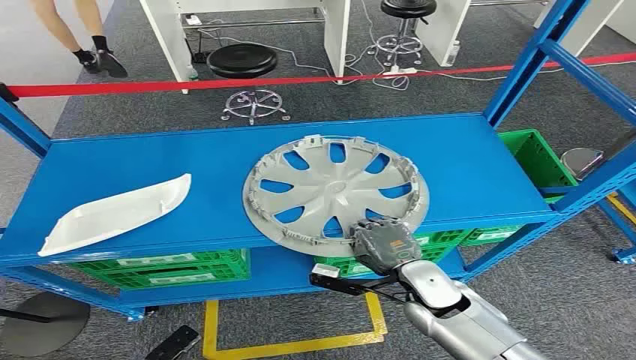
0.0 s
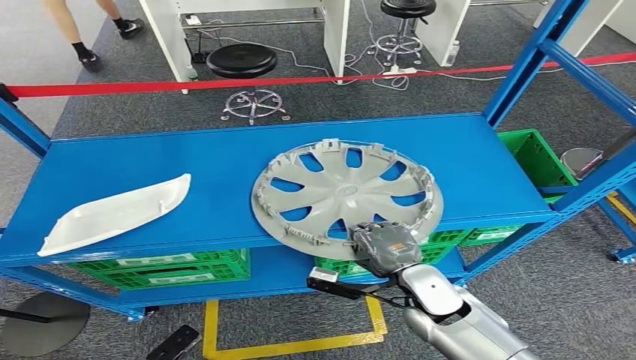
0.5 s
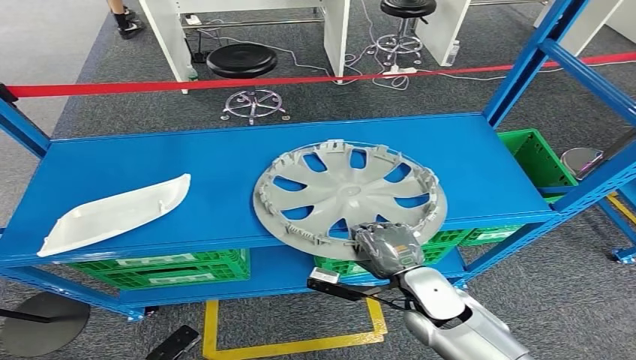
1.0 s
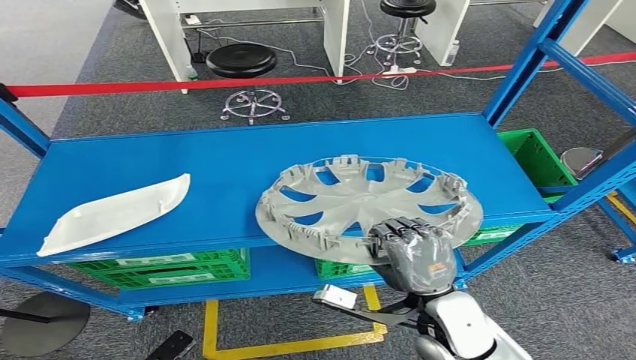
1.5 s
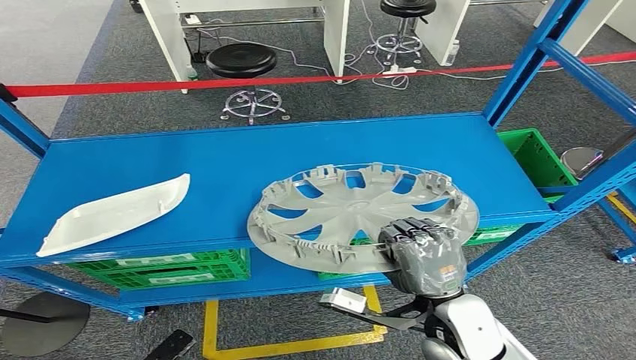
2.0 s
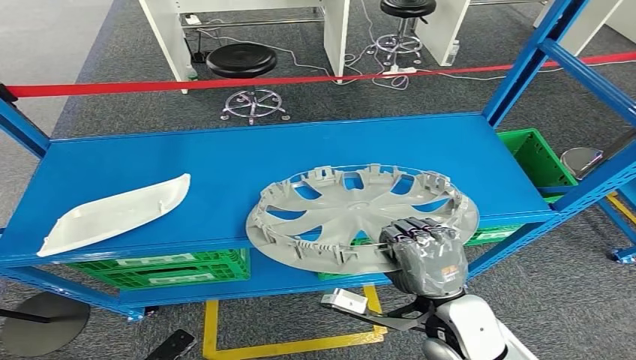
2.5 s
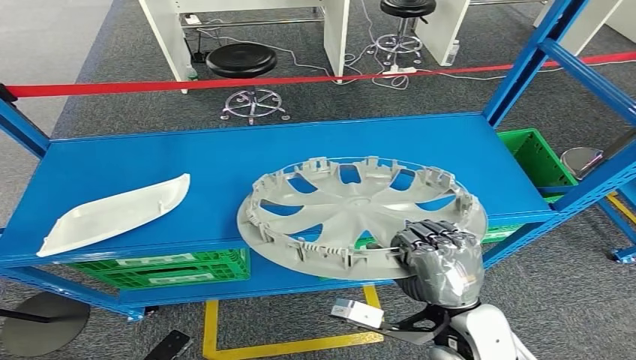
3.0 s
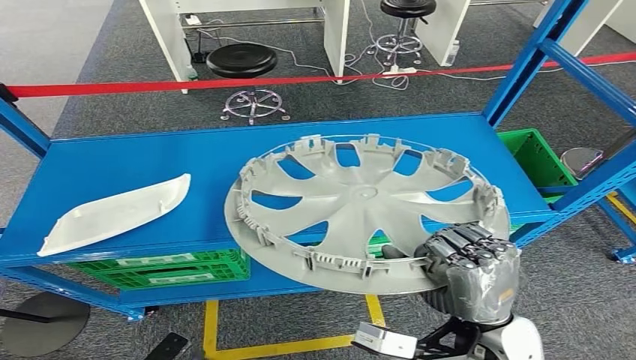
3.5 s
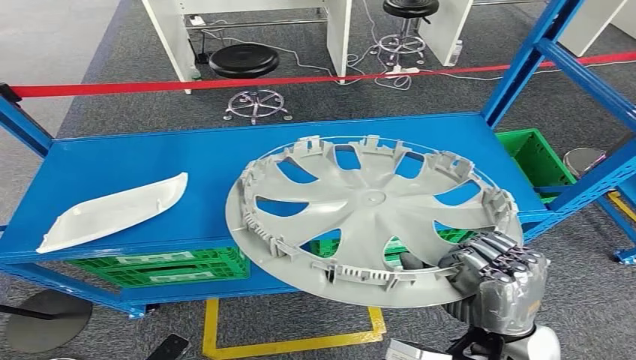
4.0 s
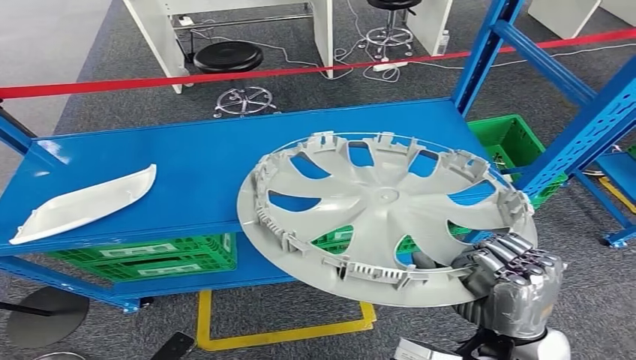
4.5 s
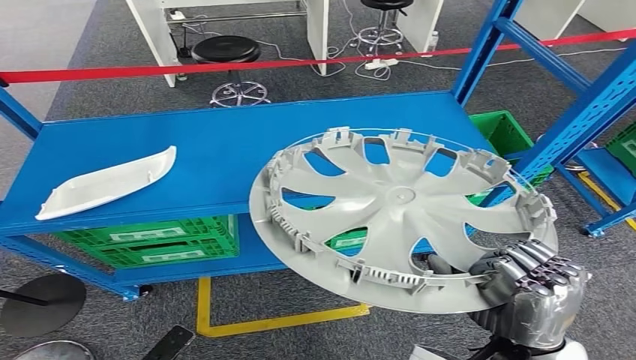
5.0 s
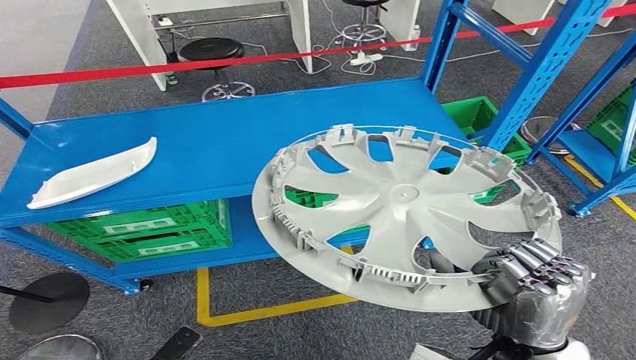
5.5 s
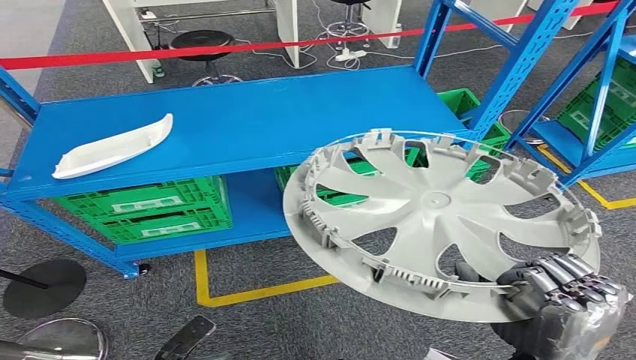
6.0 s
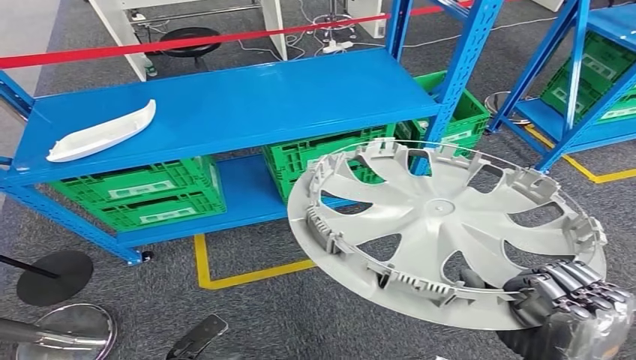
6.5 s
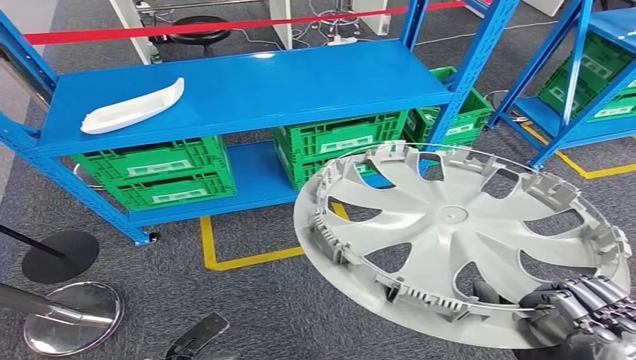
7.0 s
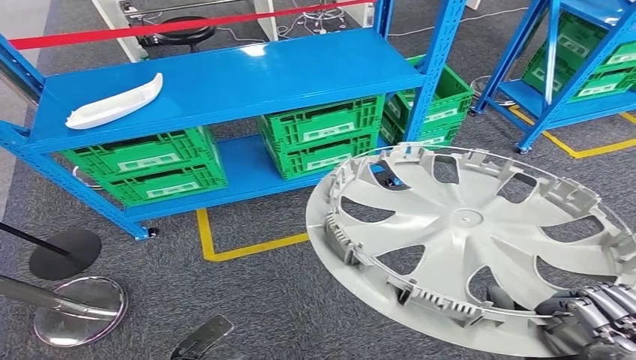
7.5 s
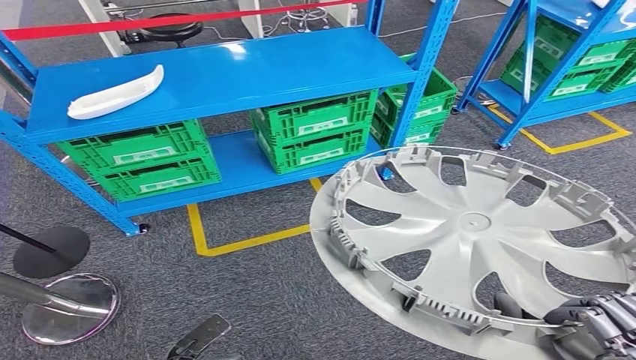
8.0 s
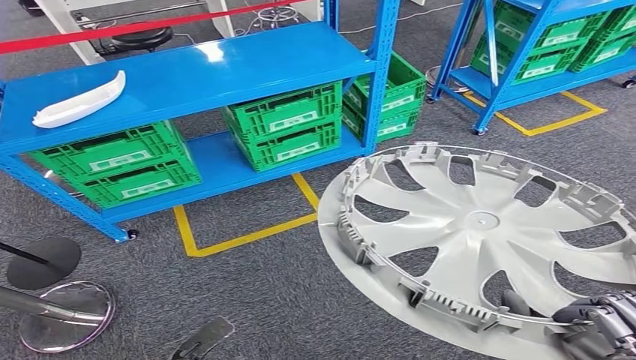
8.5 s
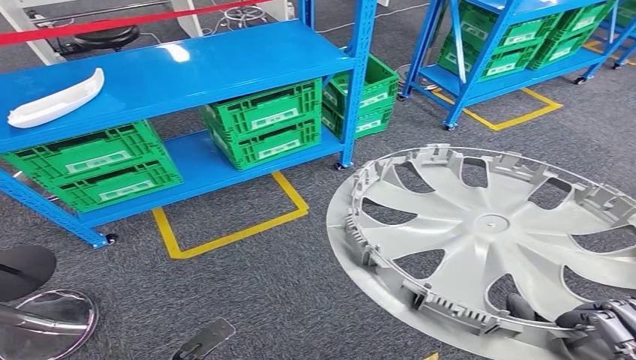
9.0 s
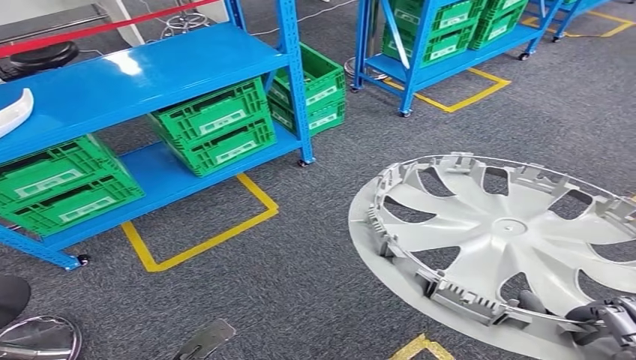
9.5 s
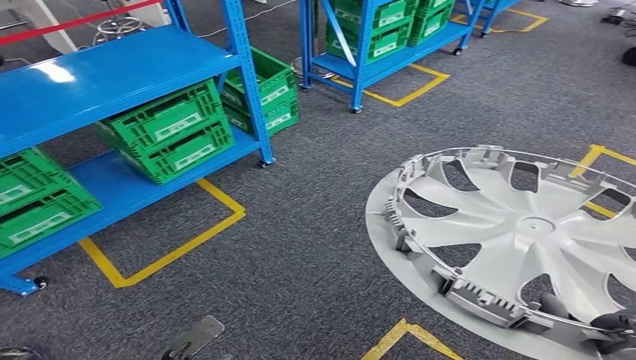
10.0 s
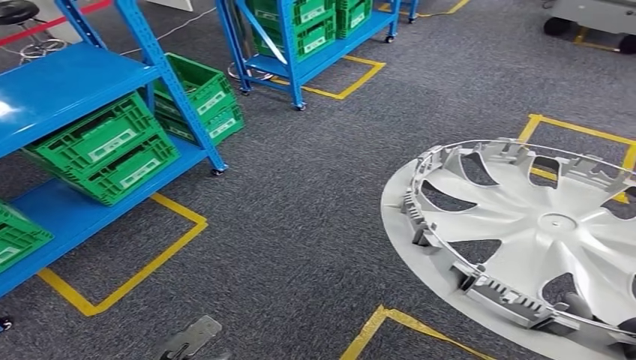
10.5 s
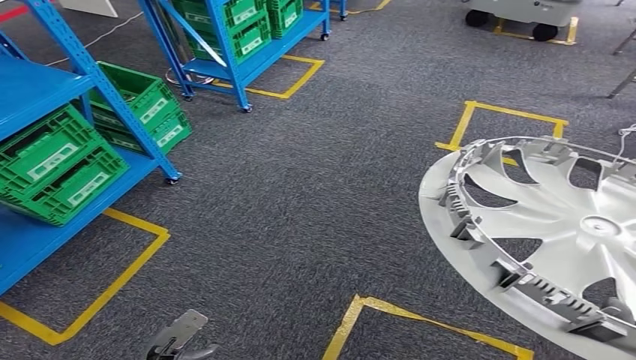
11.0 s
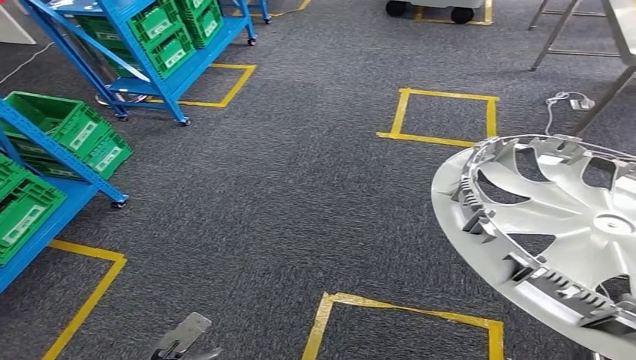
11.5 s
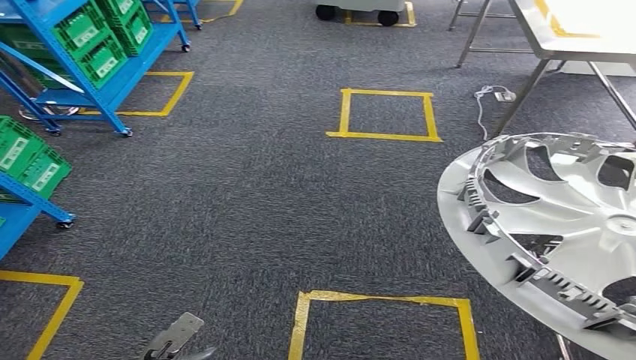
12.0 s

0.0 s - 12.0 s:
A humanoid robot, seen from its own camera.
Step, 0.0 s - 4.0 s: Pick up the small component from the shelf.

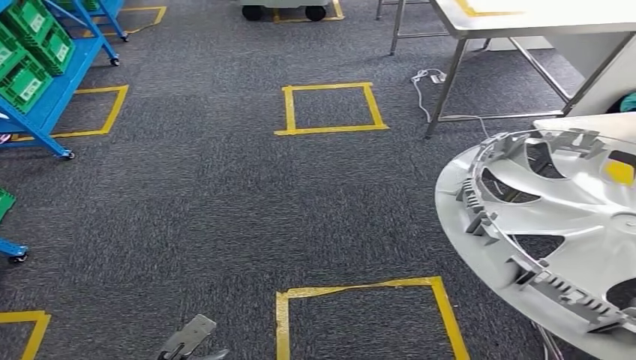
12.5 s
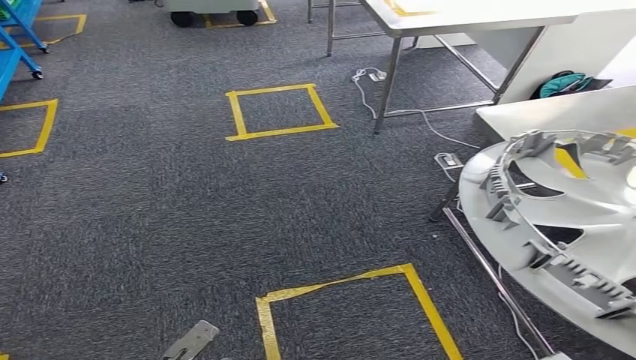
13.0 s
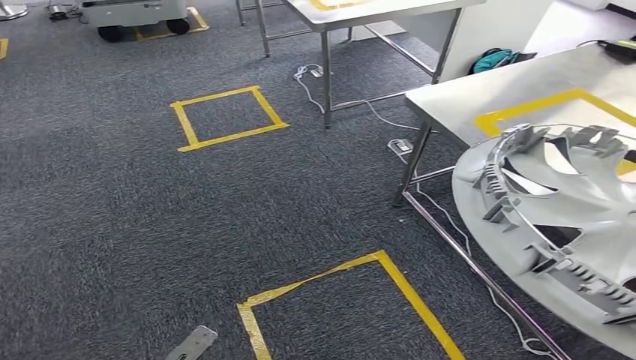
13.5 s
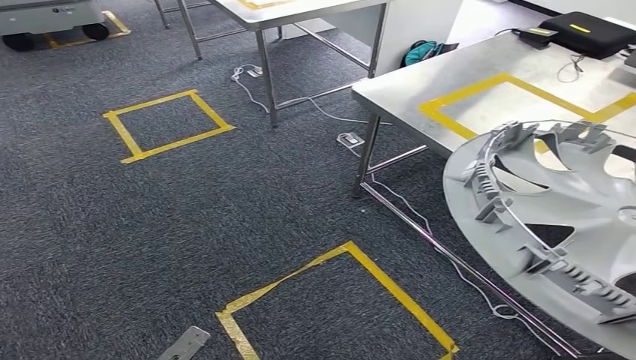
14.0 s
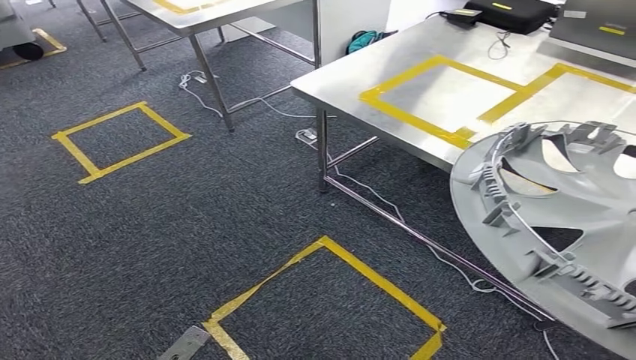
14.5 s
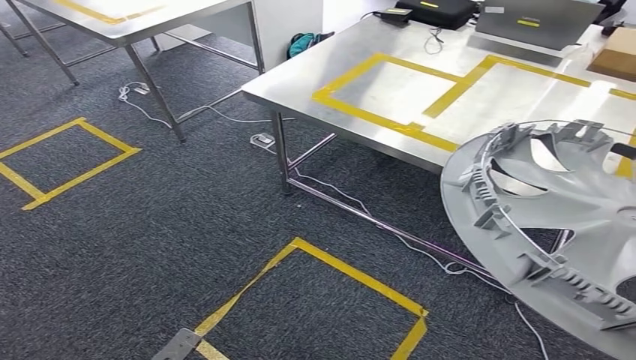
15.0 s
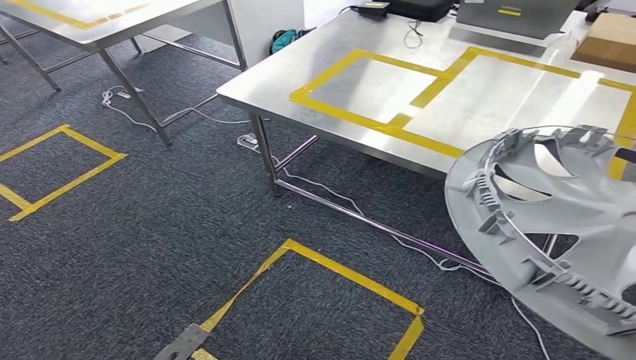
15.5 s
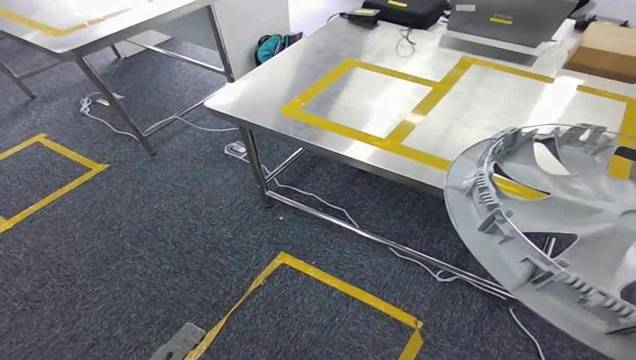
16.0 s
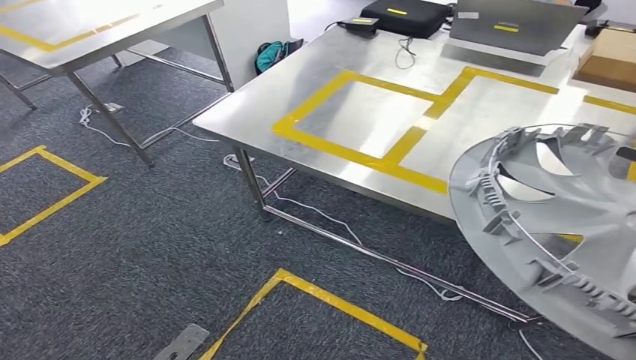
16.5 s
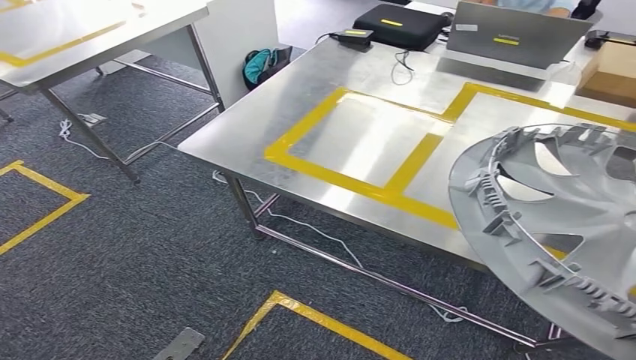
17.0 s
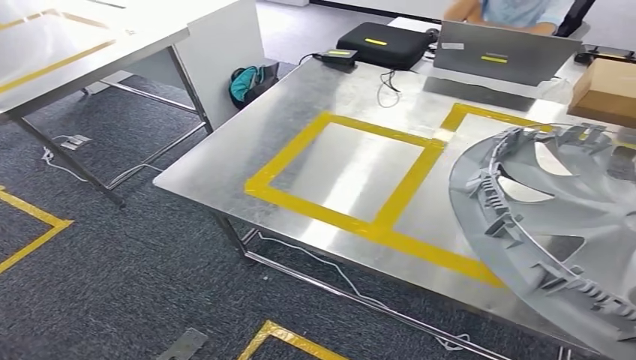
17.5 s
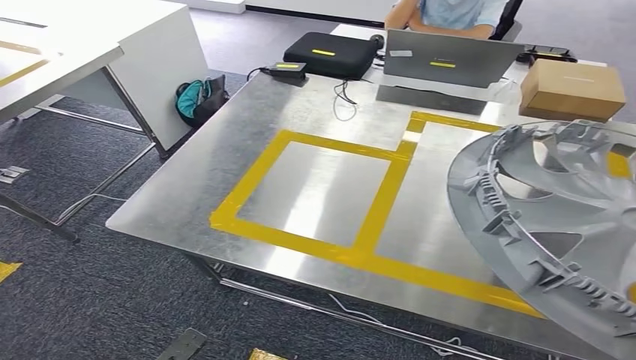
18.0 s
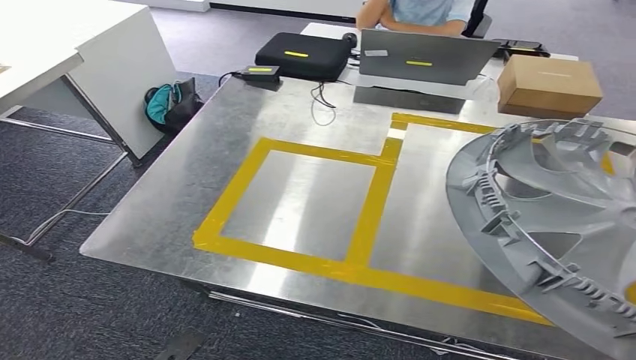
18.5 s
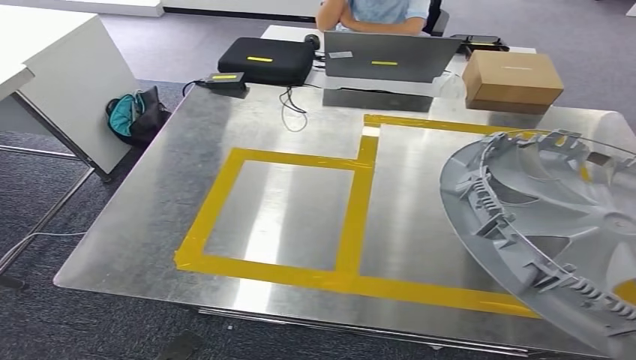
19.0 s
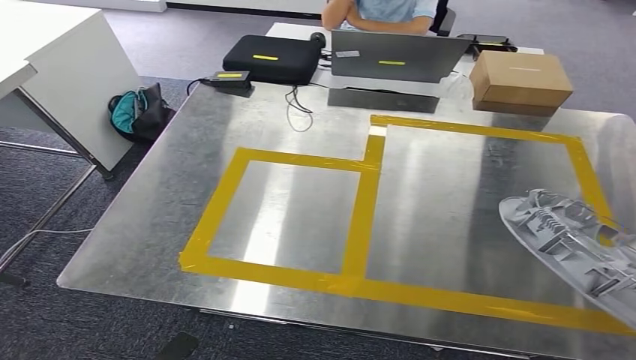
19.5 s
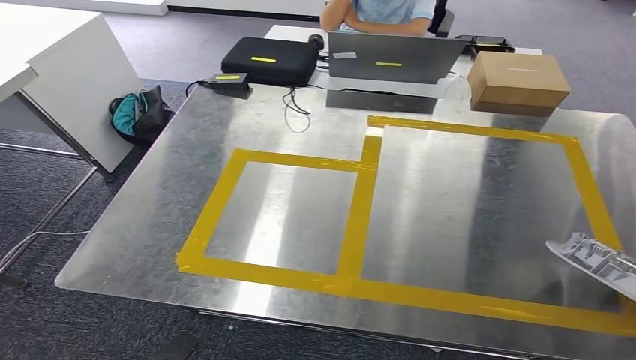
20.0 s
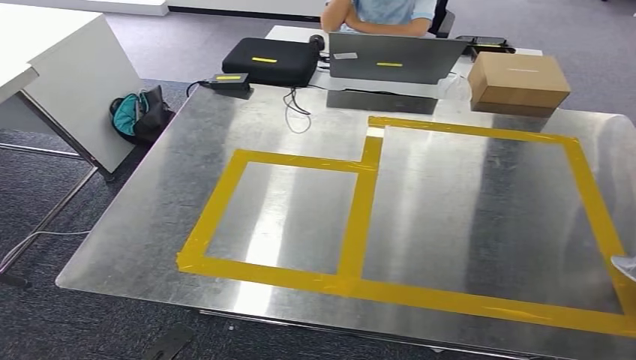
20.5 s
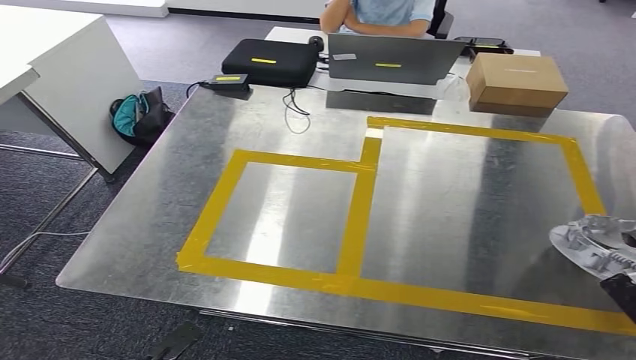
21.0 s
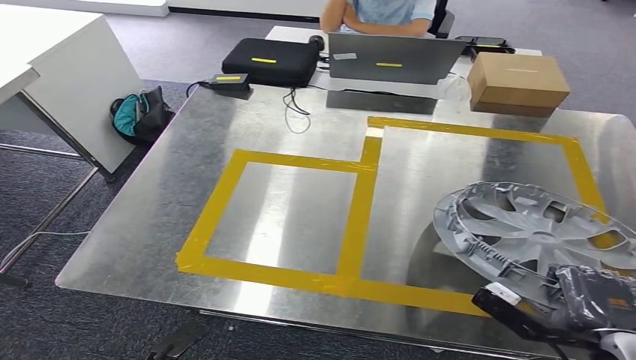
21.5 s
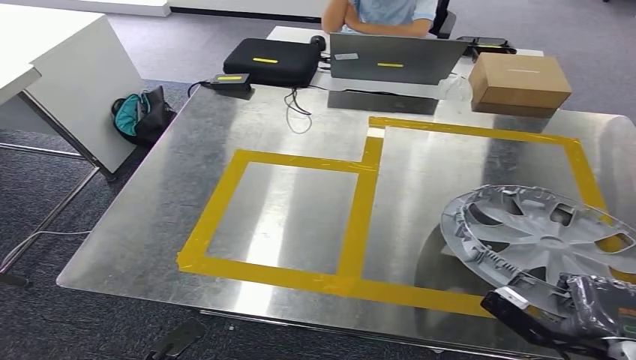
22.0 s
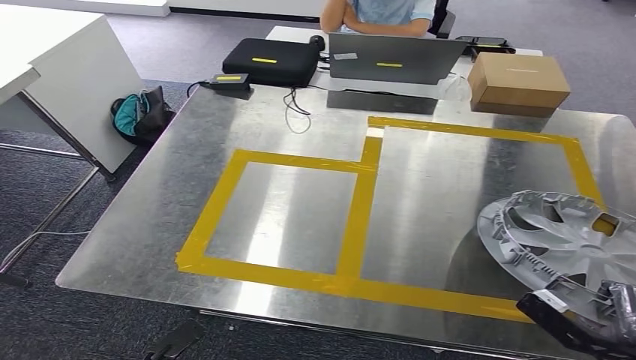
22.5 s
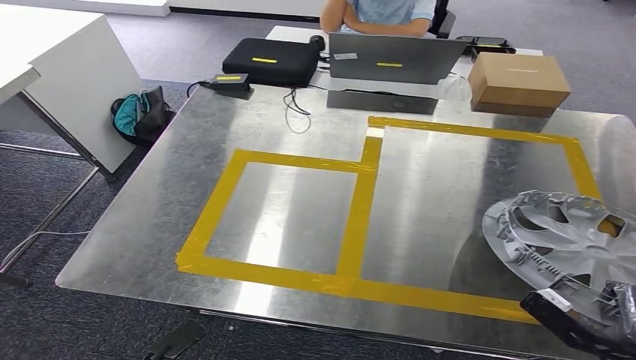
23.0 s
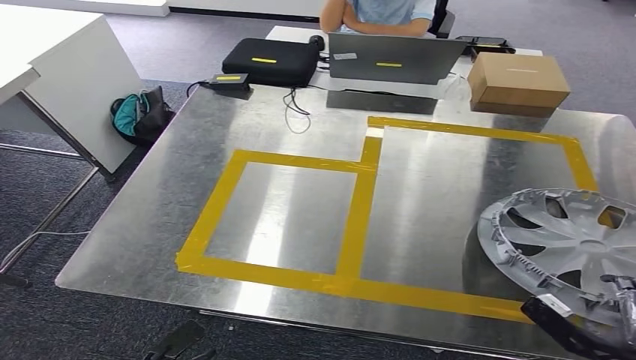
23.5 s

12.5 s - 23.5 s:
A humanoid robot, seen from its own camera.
Step, 12.5 s - 16.5 s: Bring the small component to the front of the workbench.
20.0 s - 21.5 s: The right hand travels forward, downward and to the left by some 15 cm.
21.5 s - 23.5 s: The right hand moves some 5 cm.
